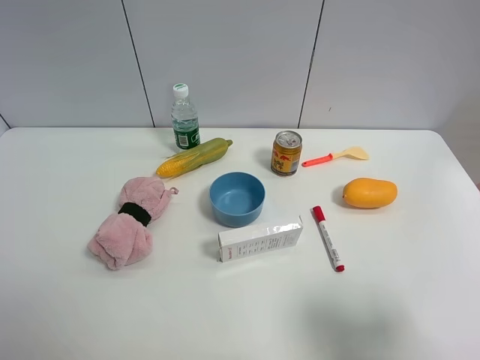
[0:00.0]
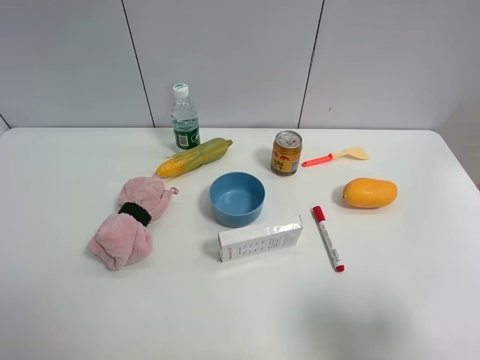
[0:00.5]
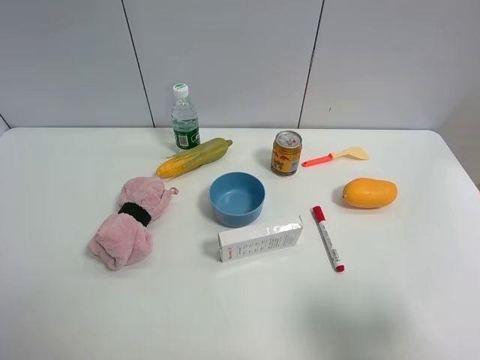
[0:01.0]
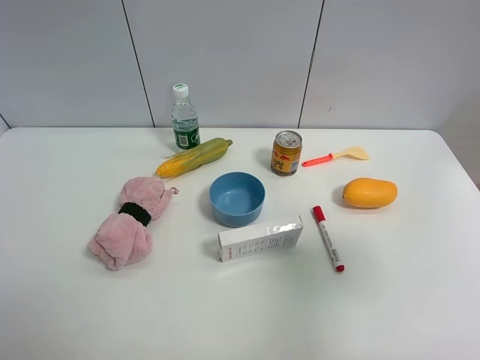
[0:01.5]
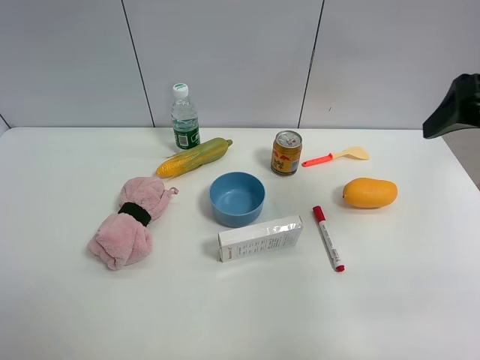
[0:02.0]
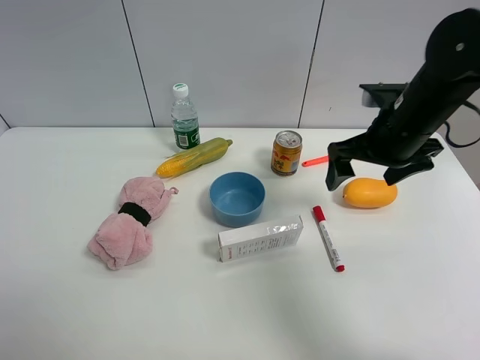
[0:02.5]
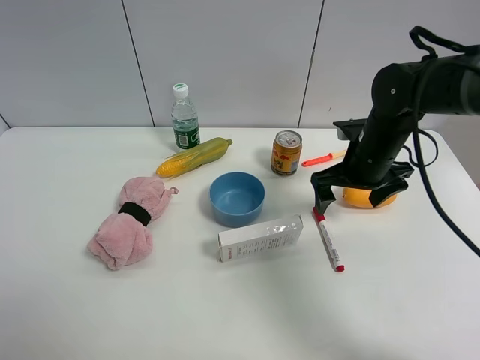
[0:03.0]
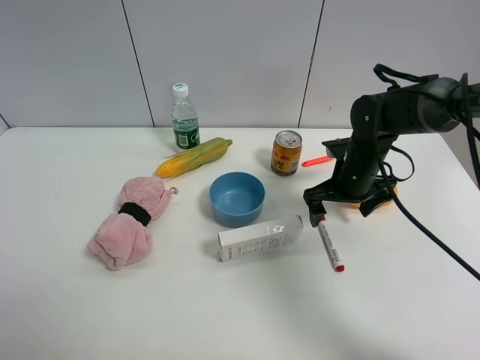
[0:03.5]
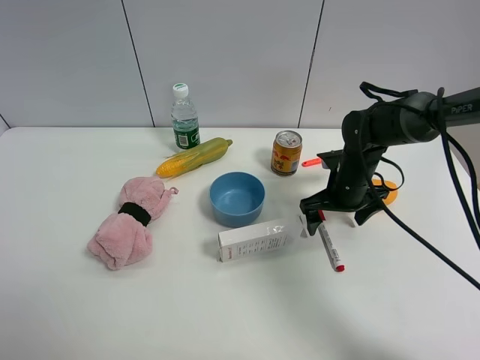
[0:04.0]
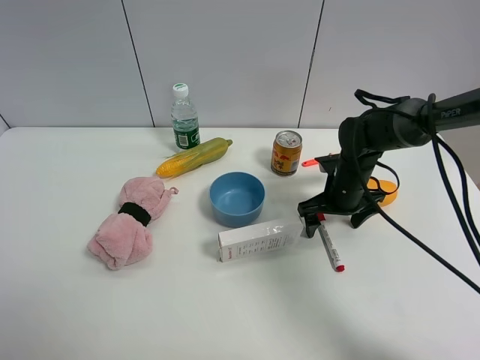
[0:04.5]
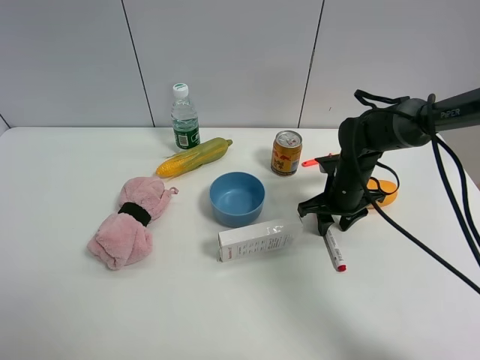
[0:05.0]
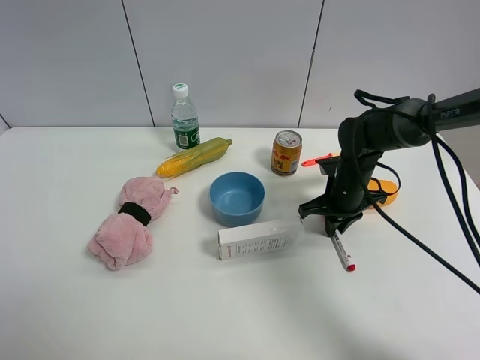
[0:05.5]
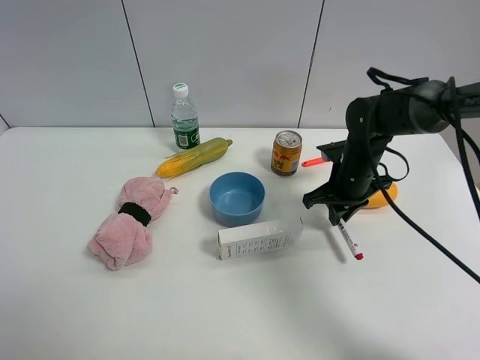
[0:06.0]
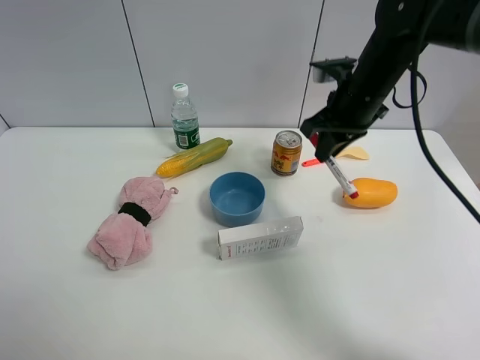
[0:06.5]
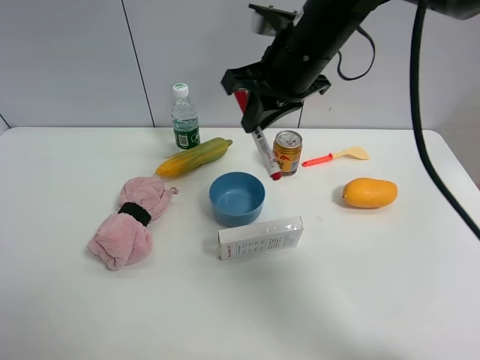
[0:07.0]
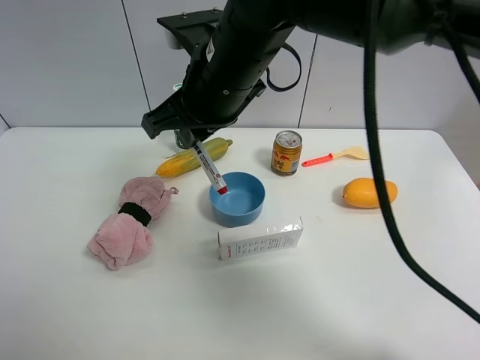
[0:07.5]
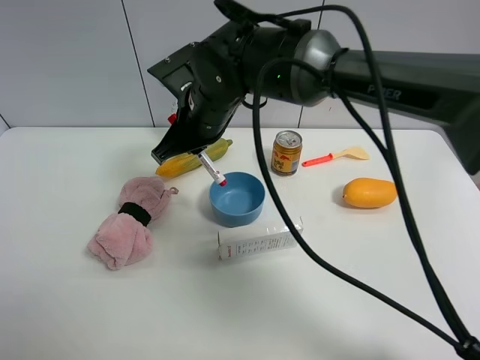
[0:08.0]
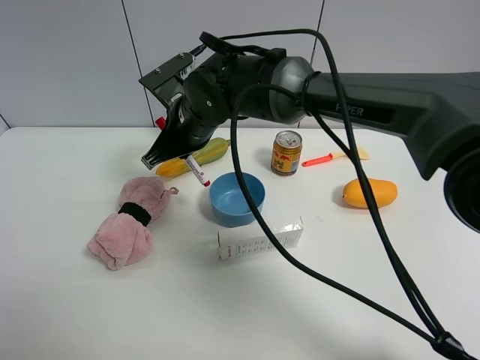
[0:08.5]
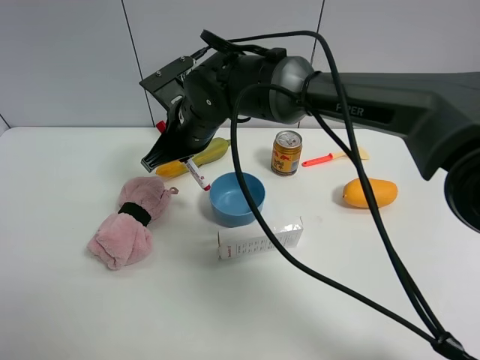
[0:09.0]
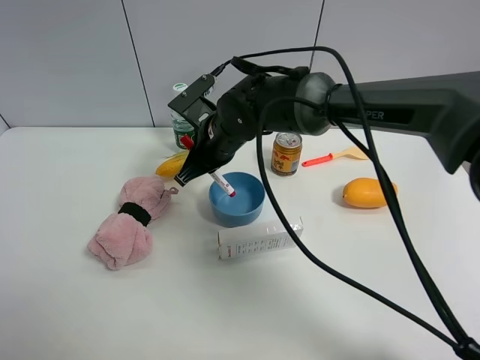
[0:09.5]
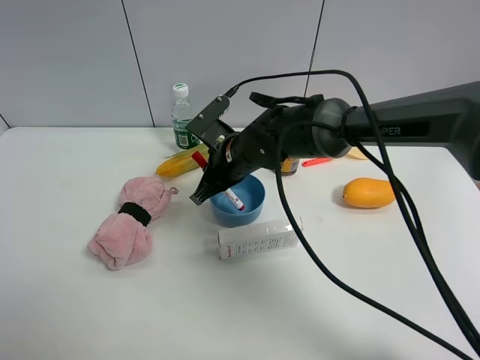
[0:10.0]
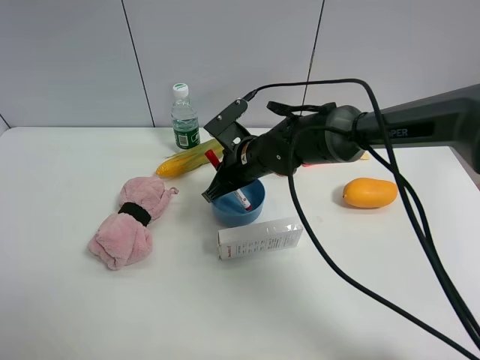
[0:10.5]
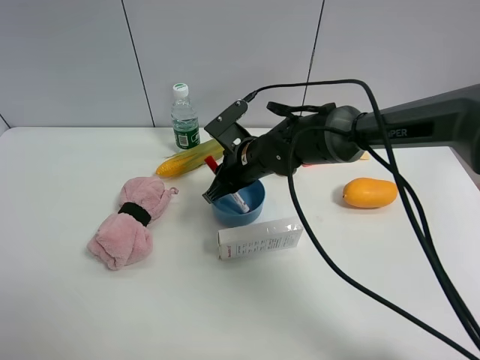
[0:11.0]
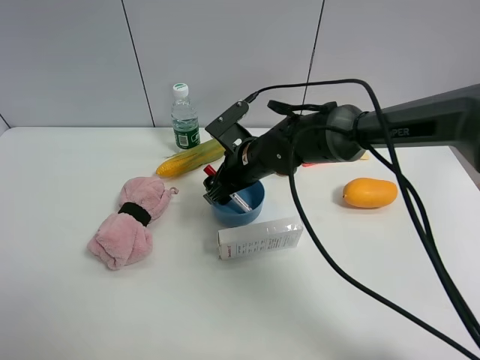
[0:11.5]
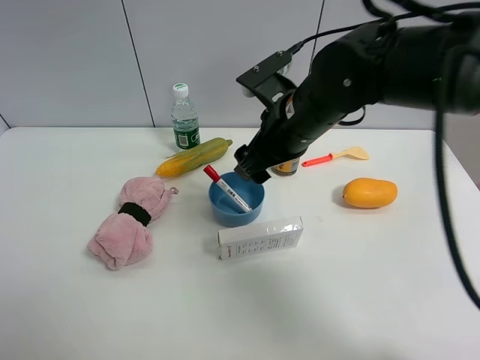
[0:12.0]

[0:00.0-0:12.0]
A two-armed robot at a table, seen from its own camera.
Task of the whole recording: the gripper move the object.
Step, 0:00.0 to 0:05.0: Grasp the red marker pen with the right gripper.
Step, 0:05.5 to 0:11.0: Place the red marker pen into the blue bowl with the right gripper.
0:00.0 to 0:02.0: The right gripper shifts roughly 20 cm forward.
0:02.0 to 0:04.0: The right gripper heads downward, forward and to the left, covering approximately 30 cm.
0:04.0 to 0:06.0: The right gripper closes its fingers.
0:06.0 to 0:08.0: The right gripper moves to the left and upward, approximately 25 cm.
0:08.0 to 0:10.0: The right gripper moves downward, about 10 cm.
0:10.0 to 0:12.0: The right gripper travels upward and to the right by roughly 15 cm, and opens.

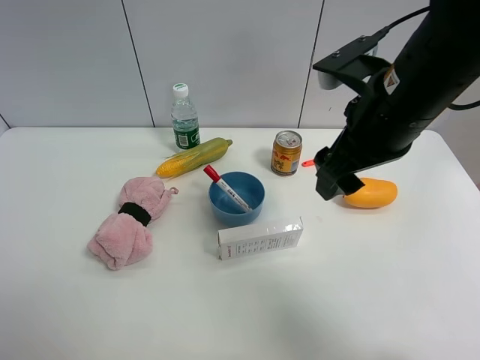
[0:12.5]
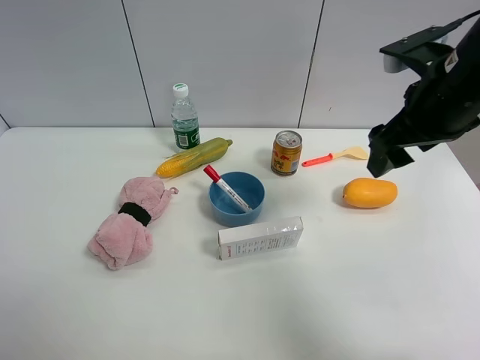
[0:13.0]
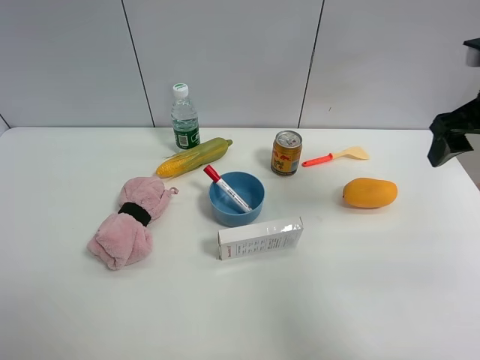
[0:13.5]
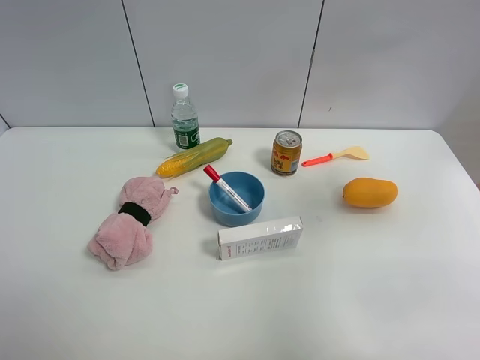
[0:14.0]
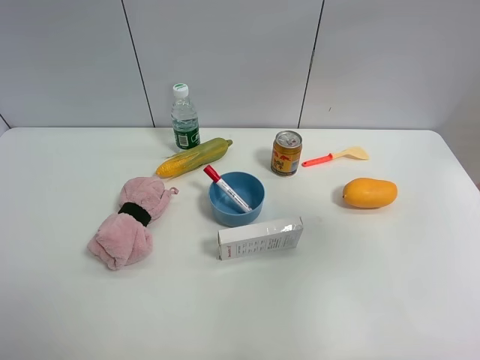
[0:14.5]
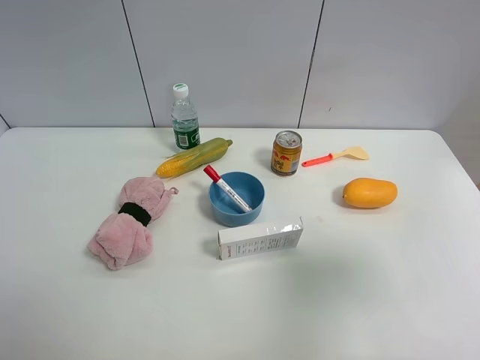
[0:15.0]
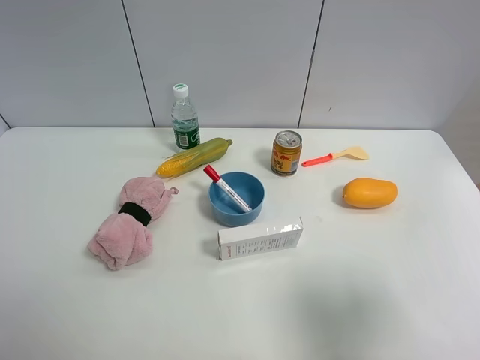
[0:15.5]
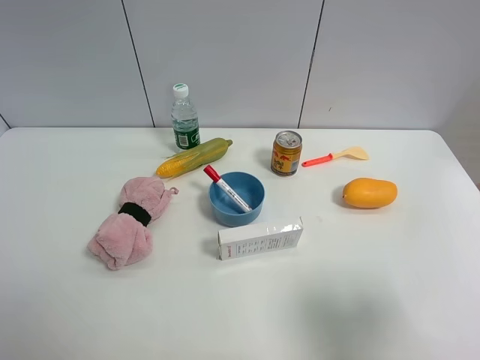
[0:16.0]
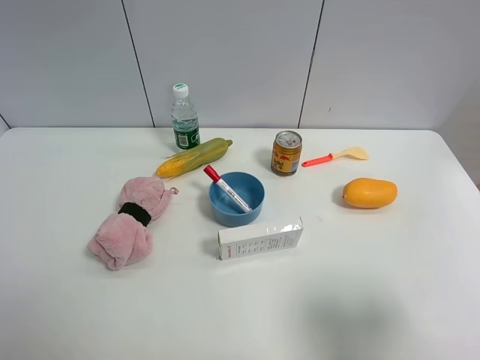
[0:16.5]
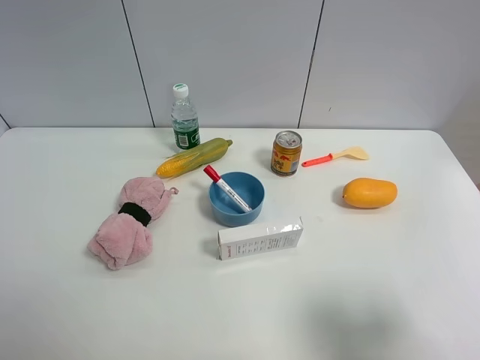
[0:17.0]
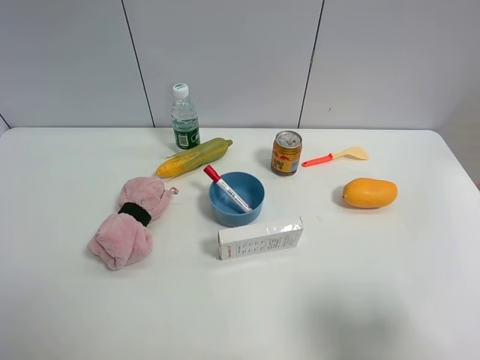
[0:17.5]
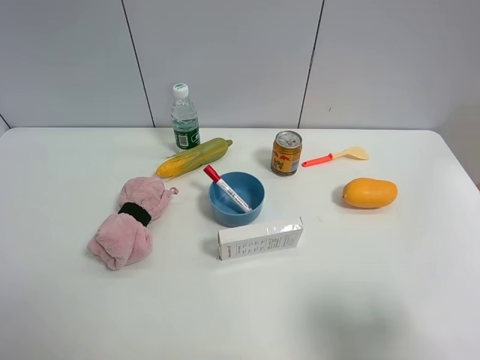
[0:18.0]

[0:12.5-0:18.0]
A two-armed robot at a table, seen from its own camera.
Task of the whole recording: the gripper move the object.
0:12.5 to 0:14.5: The right gripper moves to the right, backward and upward, approximately 25 cm.
0:14.5 to 0:16.0: The right gripper moves downward and backward, approximately 20 cm.

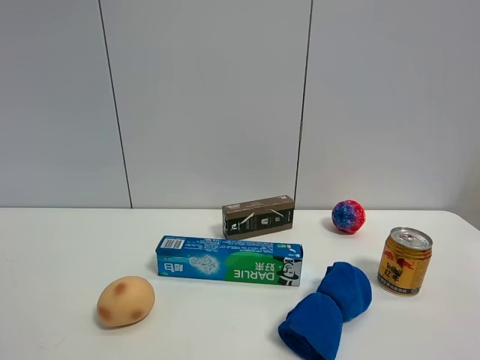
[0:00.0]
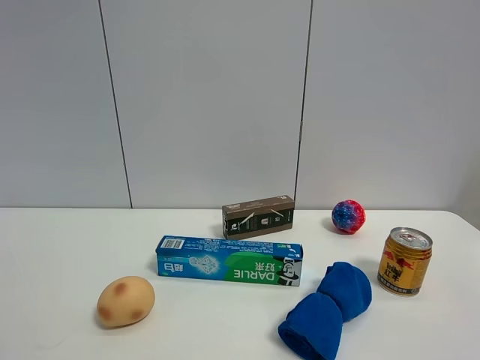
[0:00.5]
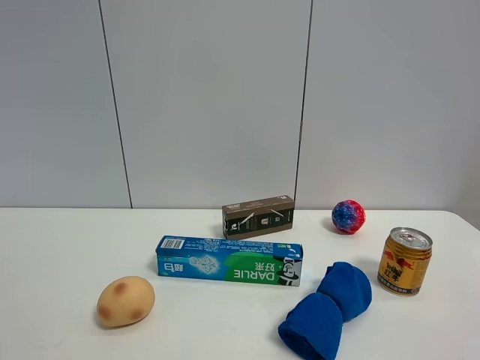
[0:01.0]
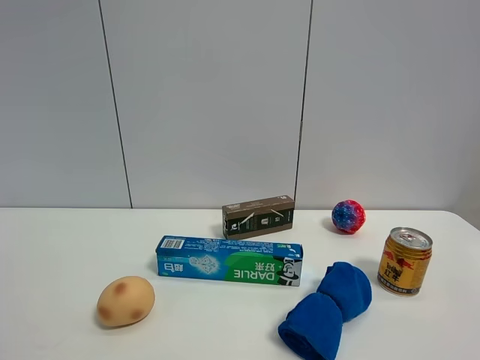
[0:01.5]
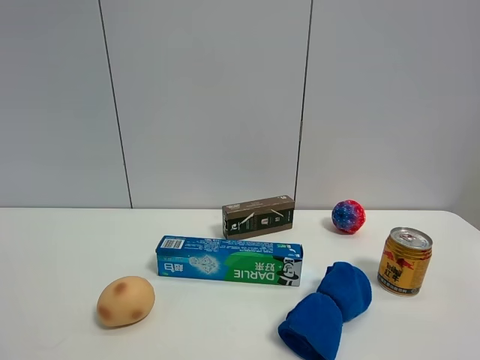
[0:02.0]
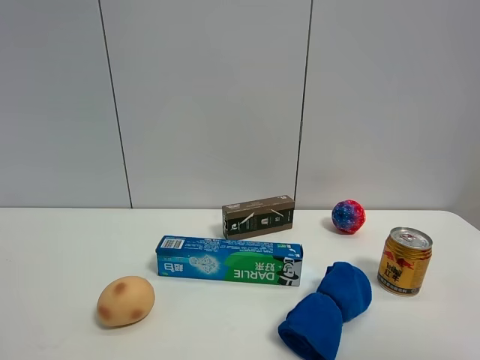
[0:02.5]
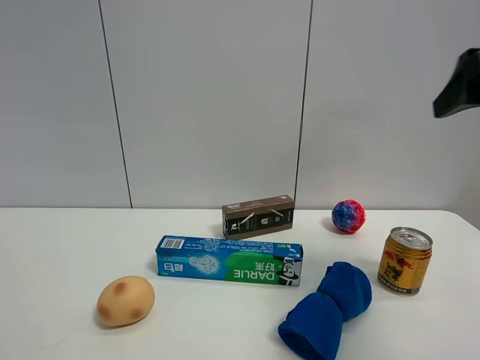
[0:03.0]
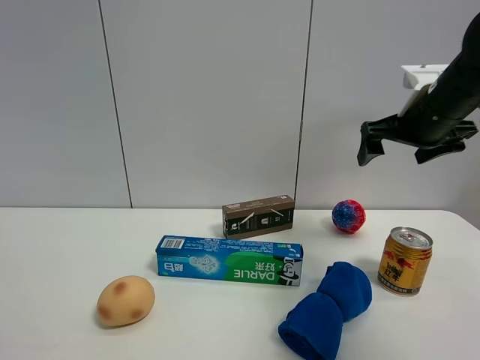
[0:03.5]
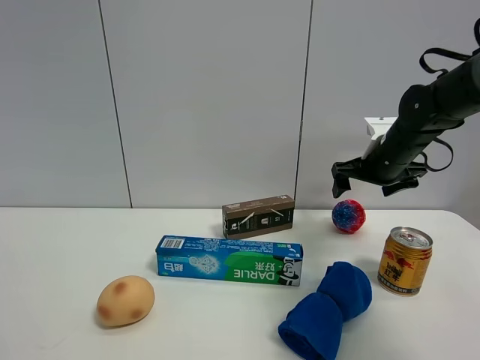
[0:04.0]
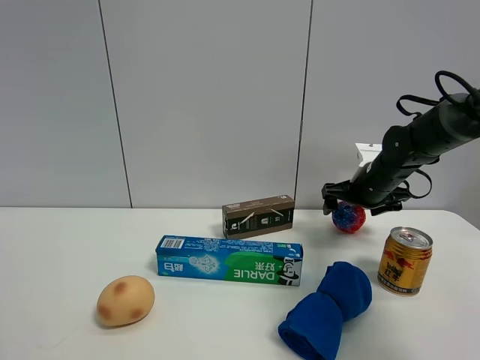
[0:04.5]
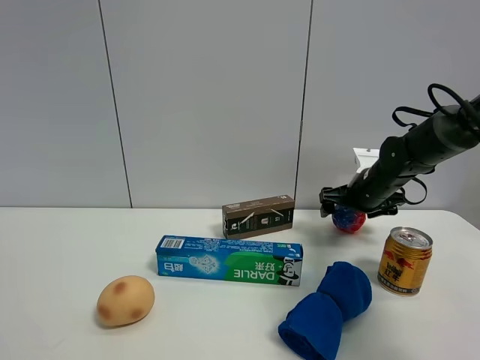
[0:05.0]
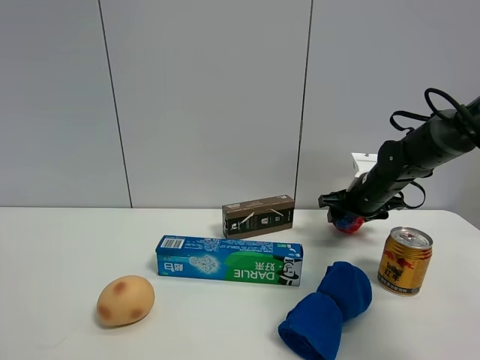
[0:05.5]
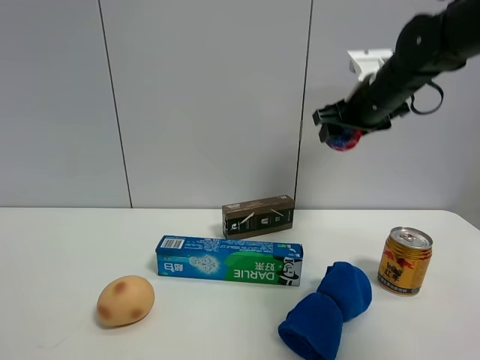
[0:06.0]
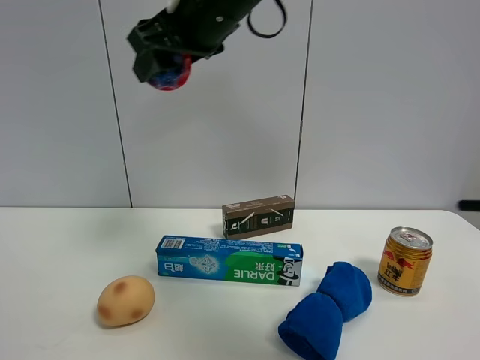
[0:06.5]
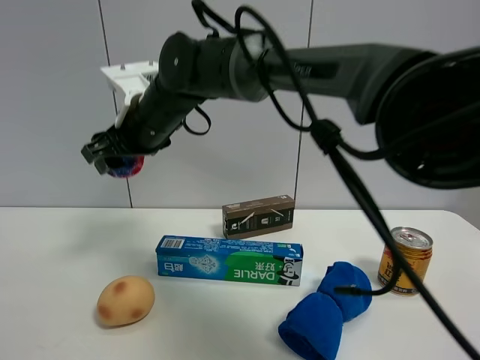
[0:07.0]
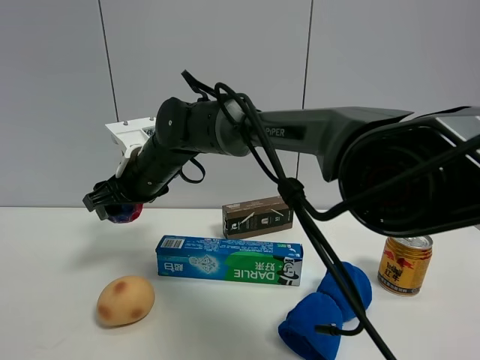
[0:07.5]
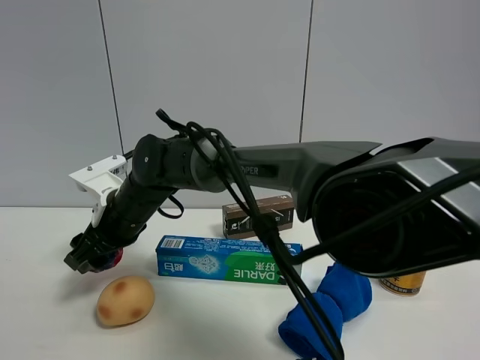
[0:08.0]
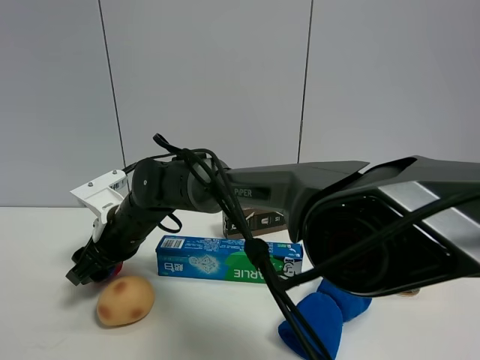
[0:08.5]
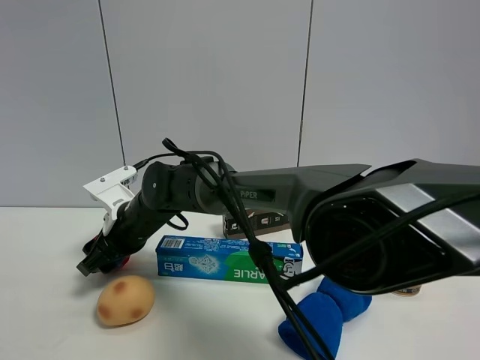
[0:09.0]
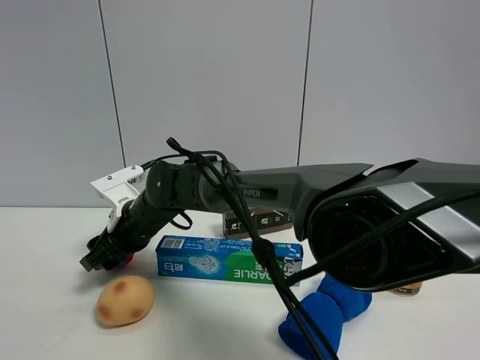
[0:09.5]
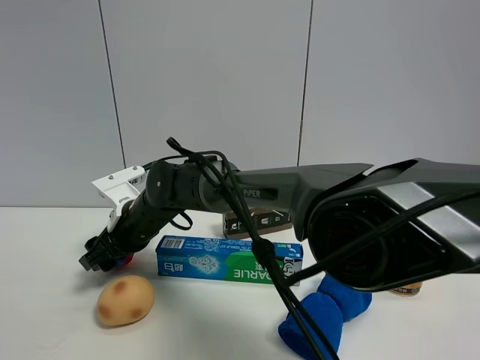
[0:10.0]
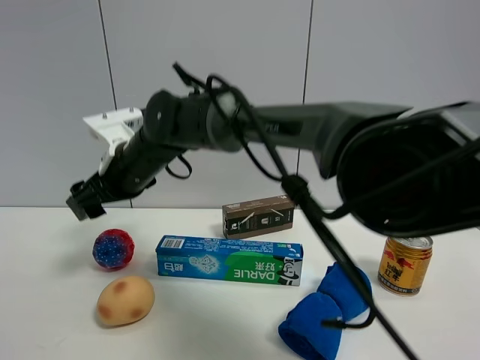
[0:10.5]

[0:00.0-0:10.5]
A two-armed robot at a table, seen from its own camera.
Task of the whole recording: the gripper move the object.
Step, 0:00.0 to 0:05.5: Grasp the colorful ball with the right gripper.
Step, 0:06.0 to 0:10.0: Place the colorful ball on the table with the right gripper.
0:00.0 to 0:02.0: The two grippers keep their place.
0:02.0 to 0:04.0: The right gripper heads forward, covering approximately 50 cm.
0:04.0 to 0:06.5: The right gripper travels to the left and upward by about 35 cm, and closes its fingers.
0:06.5 to 0:08.5: The right gripper travels downward and to the left by approximately 30 cm.
0:08.5 to 0:10.5: The right gripper moves upward, some 10 cm, and opens.
